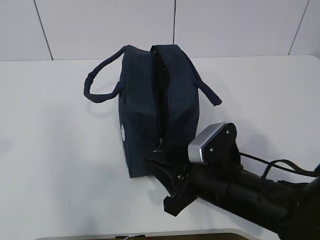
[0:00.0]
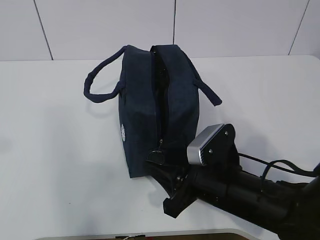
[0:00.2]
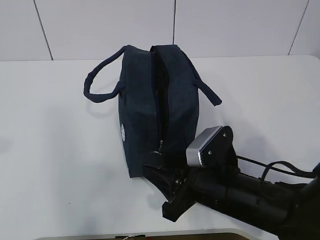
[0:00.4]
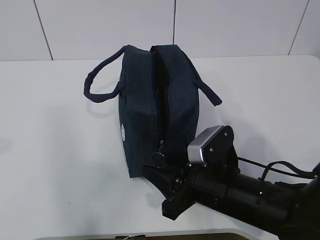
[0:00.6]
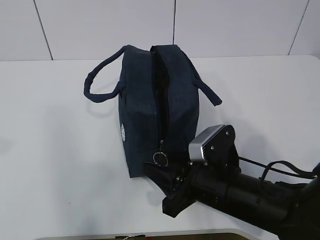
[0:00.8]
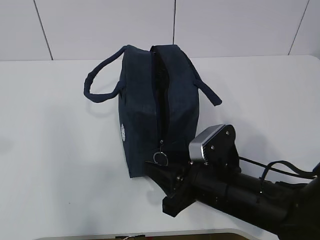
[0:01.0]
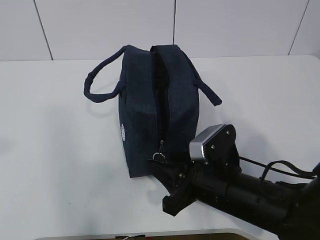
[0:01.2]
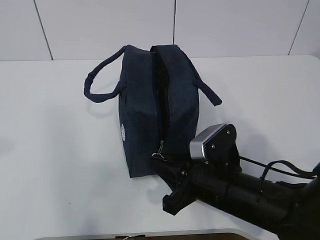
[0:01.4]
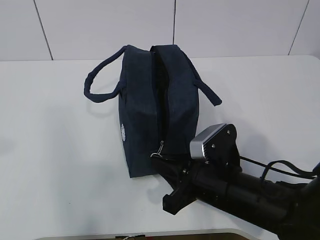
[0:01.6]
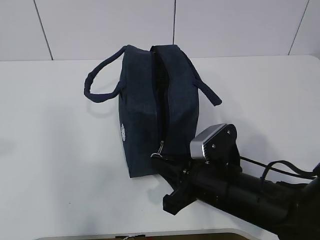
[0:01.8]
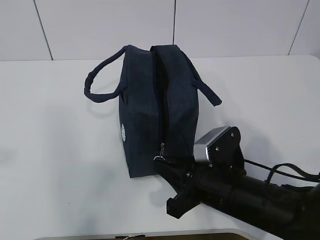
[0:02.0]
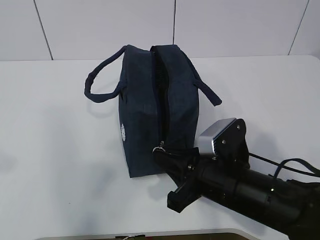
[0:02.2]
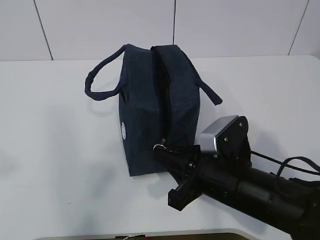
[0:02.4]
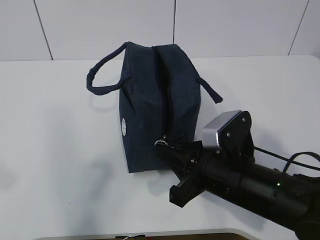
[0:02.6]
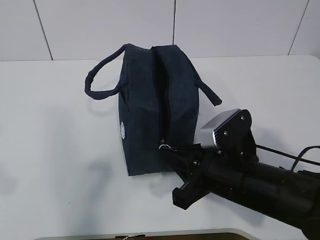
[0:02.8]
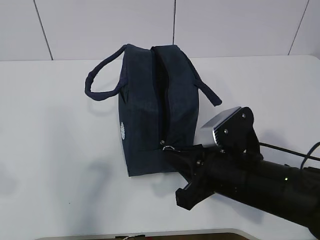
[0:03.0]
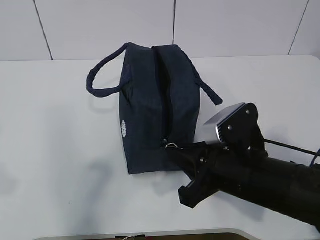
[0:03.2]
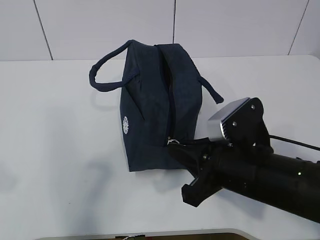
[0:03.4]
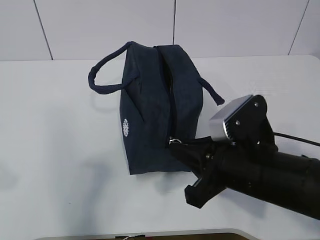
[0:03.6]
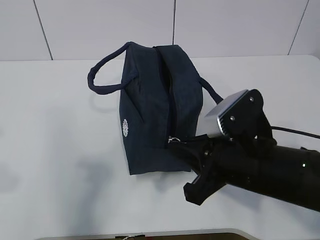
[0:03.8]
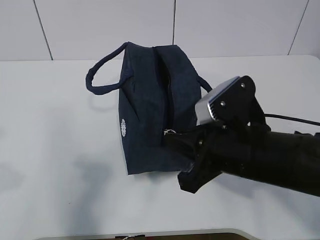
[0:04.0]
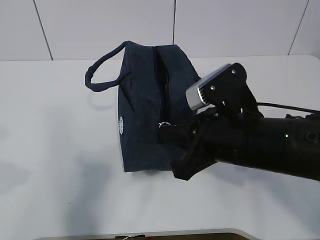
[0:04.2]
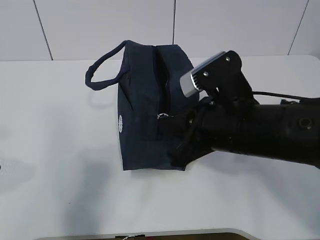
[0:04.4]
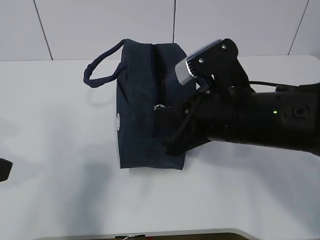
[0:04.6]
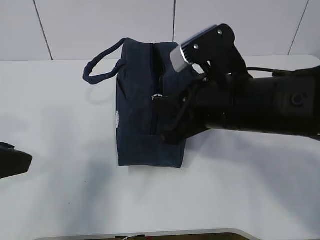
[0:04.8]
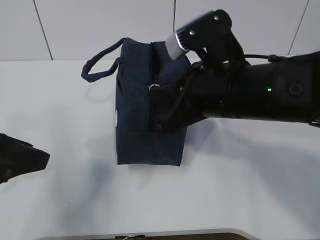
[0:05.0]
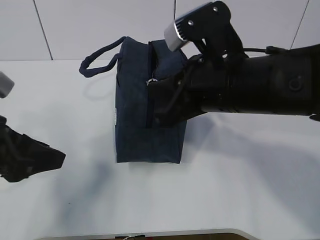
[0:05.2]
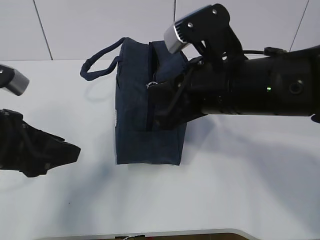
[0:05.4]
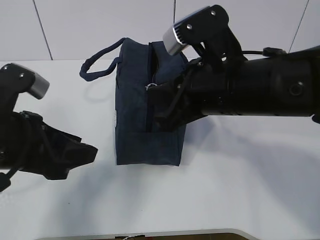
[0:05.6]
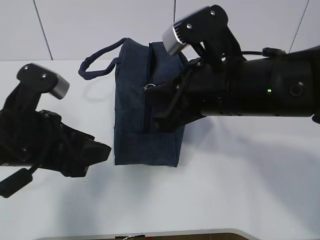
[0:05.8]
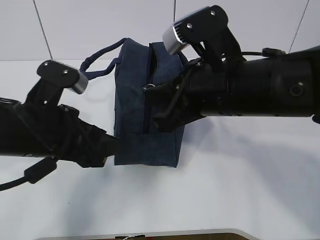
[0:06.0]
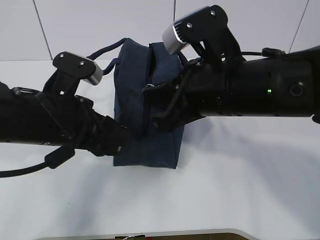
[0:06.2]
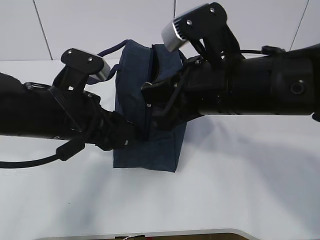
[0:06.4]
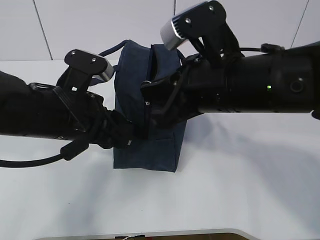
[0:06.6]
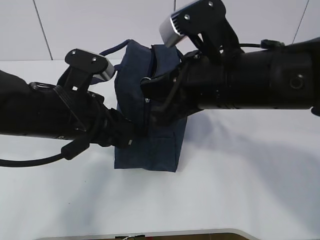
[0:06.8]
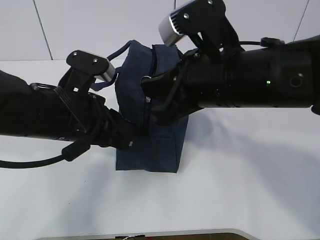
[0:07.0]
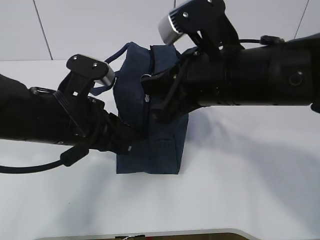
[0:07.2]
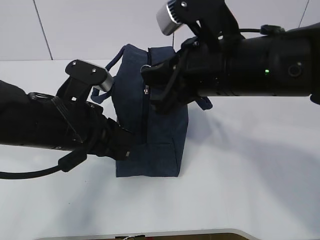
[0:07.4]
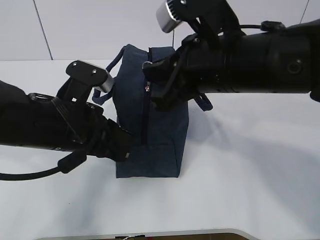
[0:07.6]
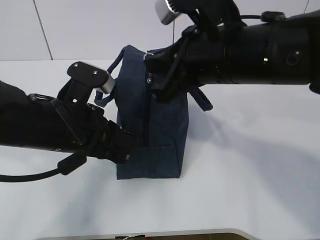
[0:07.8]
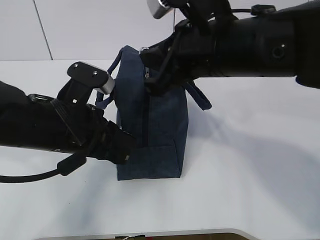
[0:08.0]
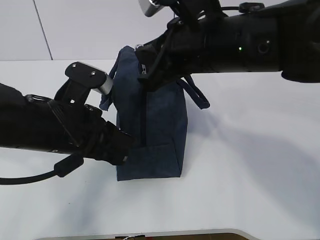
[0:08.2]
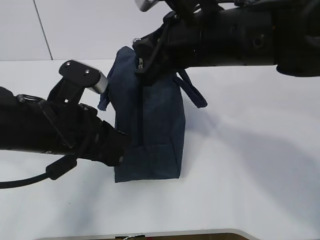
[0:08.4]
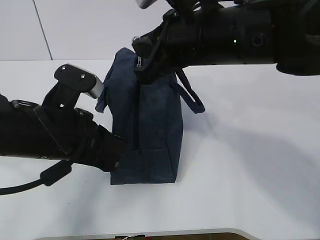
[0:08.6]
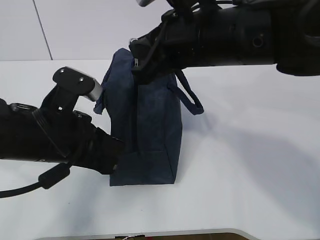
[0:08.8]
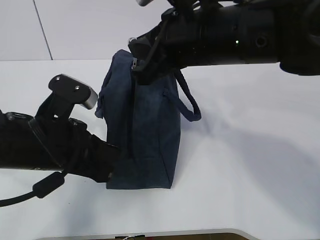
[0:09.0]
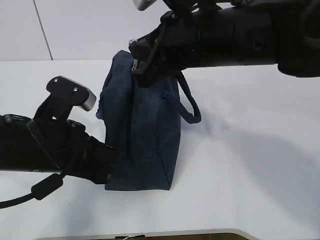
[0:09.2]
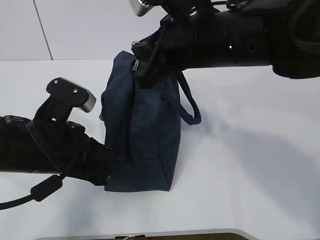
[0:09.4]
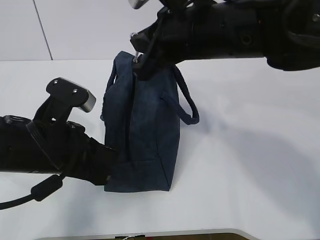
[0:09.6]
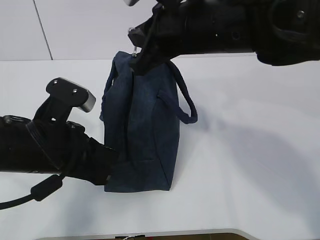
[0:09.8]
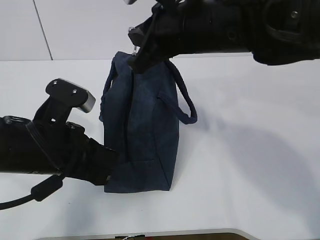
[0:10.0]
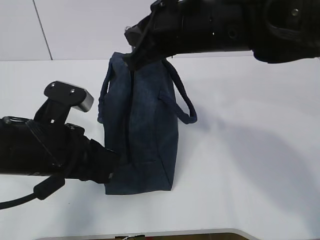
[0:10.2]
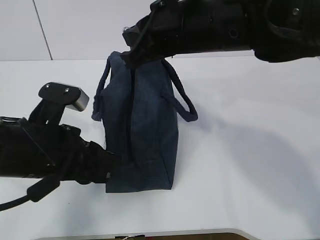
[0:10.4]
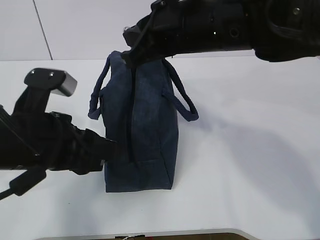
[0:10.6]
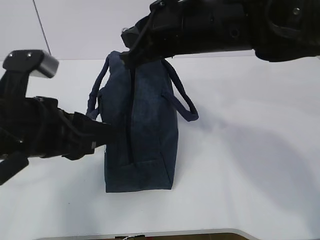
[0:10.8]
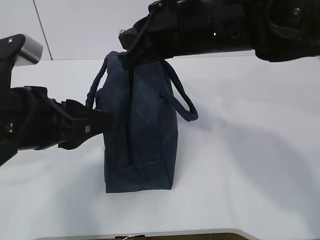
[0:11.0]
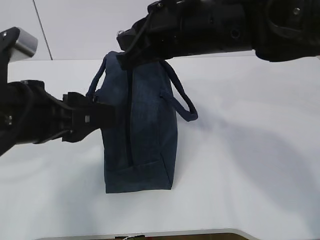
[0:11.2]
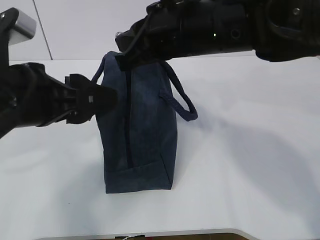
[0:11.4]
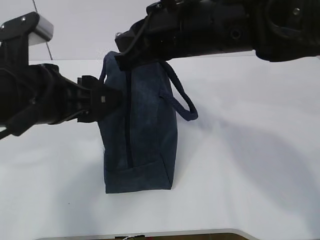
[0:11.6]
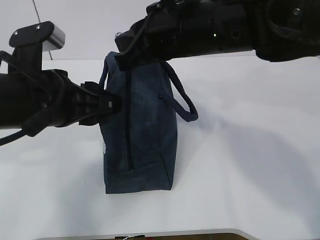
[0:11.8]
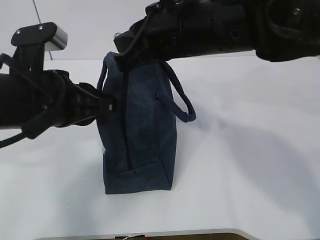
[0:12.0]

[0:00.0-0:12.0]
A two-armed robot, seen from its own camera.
Step, 0:00.0 to 0:07.2: Grab the lunch bag with your left hand.
Step, 0:07.4 to 0:10.0: Pull the zipper with your right hand.
0:00.0 to 0:01.6: The right gripper closes its fingers.
0:01.6 to 0:03.0: The left gripper heads downward, covering roughly 5 cm.
0:03.0 to 0:04.4: The right gripper heads upward, covering some 5 cm, while the left gripper goes roughly 5 cm downward.
0:04.4 to 0:06.0: The left gripper goes some 15 cm to the right, forward and downward, while the right gripper changes place by approximately 5 cm.
0:06.0 to 0:07.6: The left gripper closes its fingers.
0:09.0 to 0:10.4: The left gripper opens its fingers.
0:10.4 to 0:12.0: The left gripper goes some 5 cm upward, and opens, then closes once more.

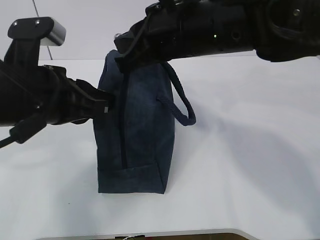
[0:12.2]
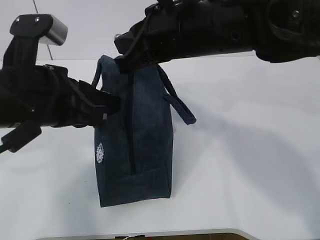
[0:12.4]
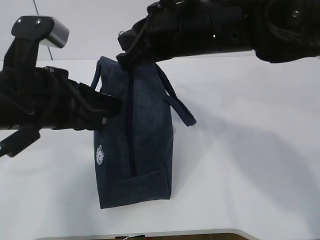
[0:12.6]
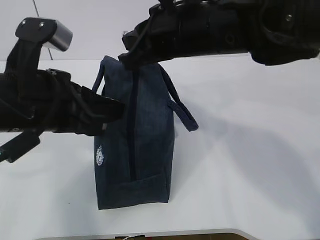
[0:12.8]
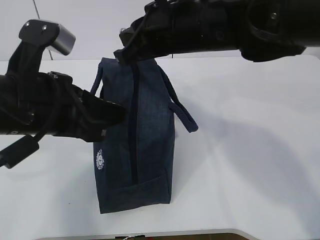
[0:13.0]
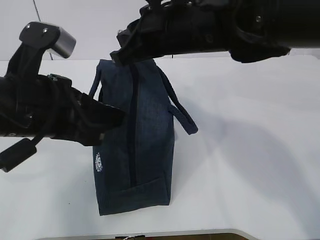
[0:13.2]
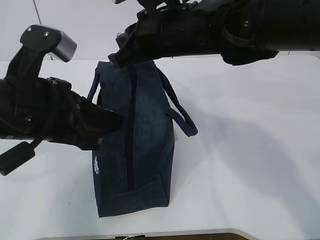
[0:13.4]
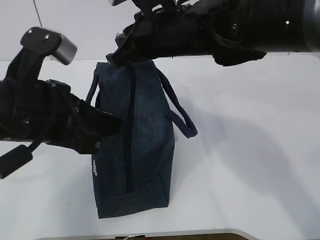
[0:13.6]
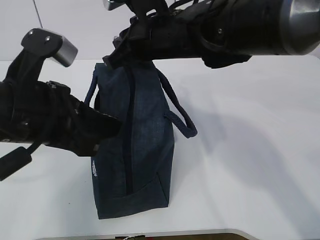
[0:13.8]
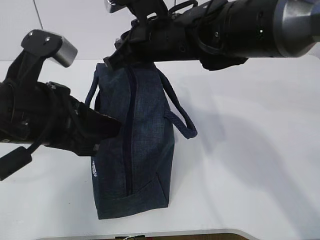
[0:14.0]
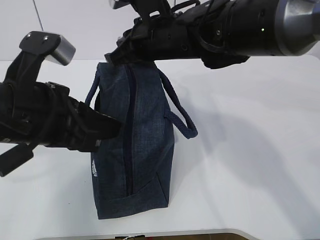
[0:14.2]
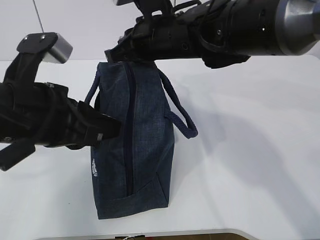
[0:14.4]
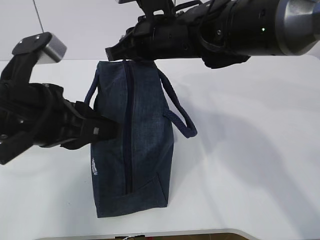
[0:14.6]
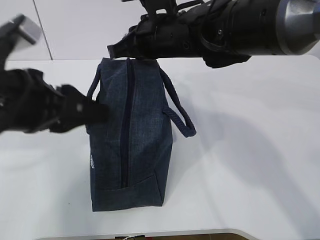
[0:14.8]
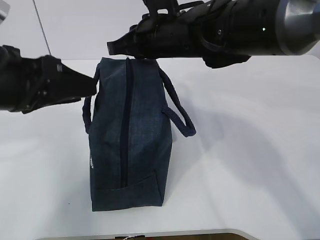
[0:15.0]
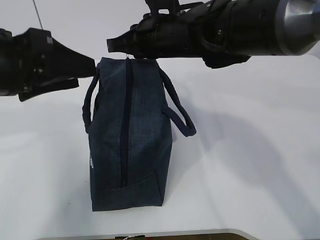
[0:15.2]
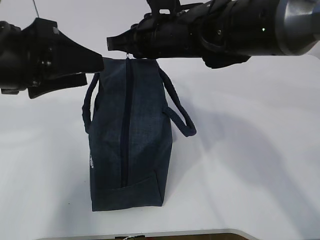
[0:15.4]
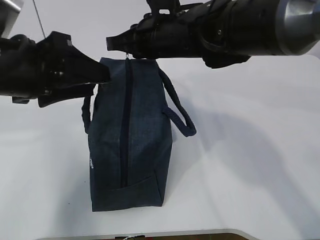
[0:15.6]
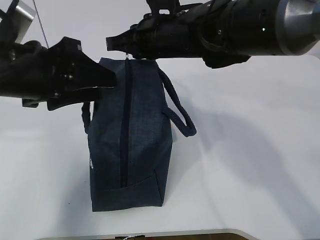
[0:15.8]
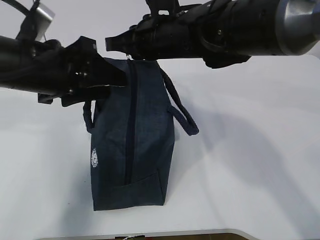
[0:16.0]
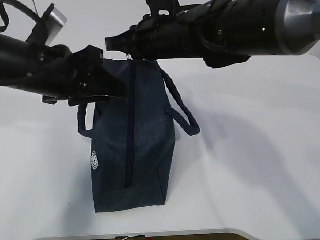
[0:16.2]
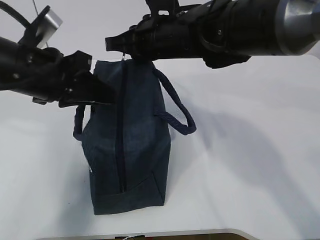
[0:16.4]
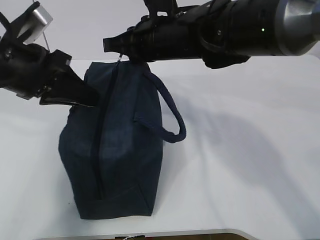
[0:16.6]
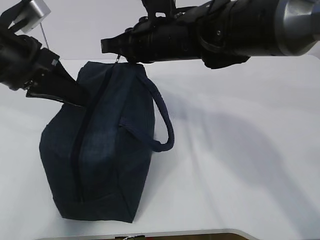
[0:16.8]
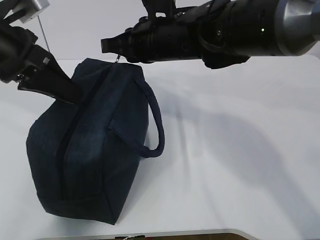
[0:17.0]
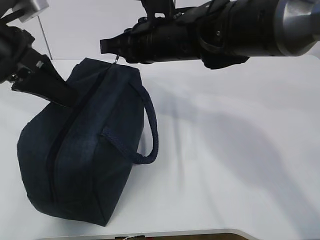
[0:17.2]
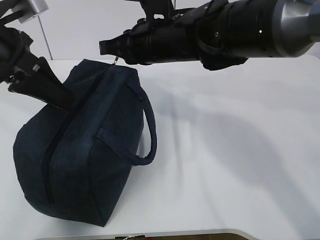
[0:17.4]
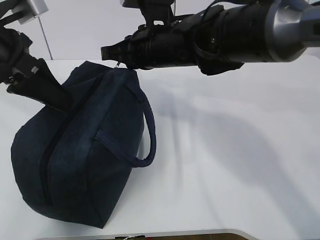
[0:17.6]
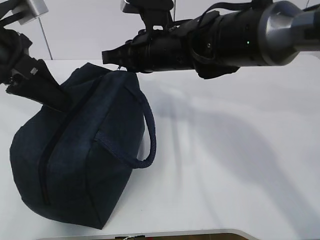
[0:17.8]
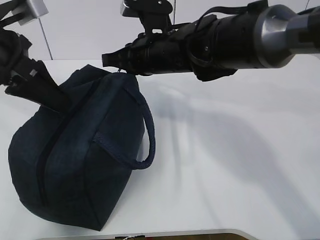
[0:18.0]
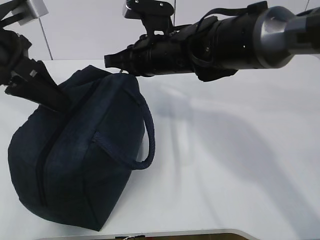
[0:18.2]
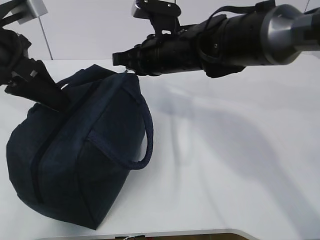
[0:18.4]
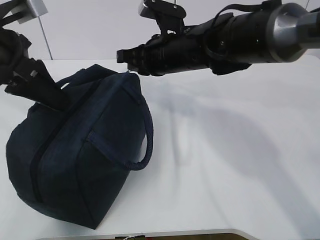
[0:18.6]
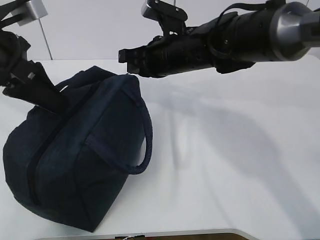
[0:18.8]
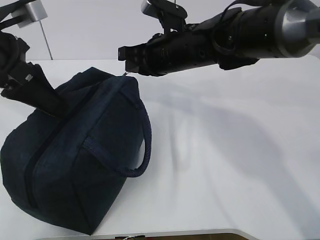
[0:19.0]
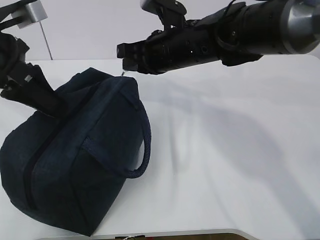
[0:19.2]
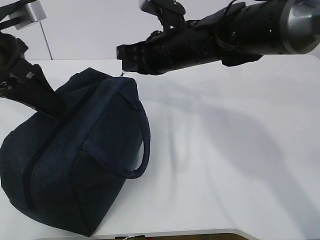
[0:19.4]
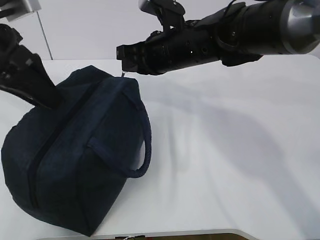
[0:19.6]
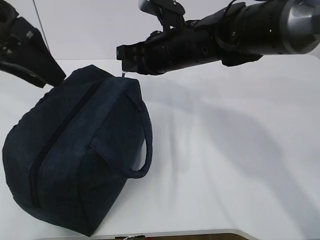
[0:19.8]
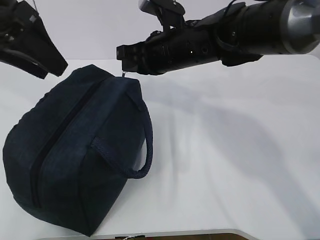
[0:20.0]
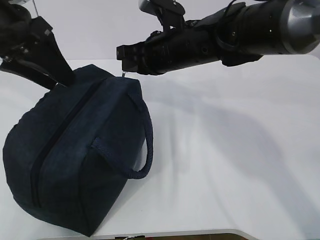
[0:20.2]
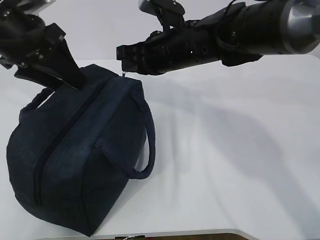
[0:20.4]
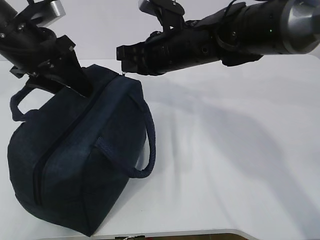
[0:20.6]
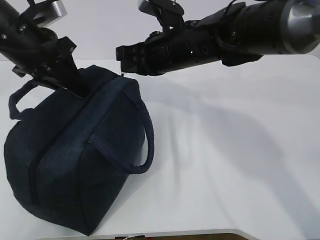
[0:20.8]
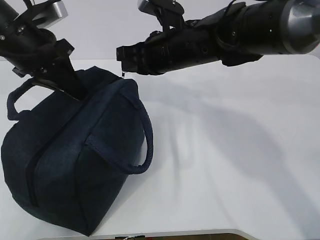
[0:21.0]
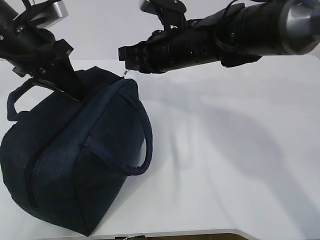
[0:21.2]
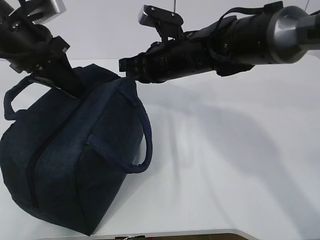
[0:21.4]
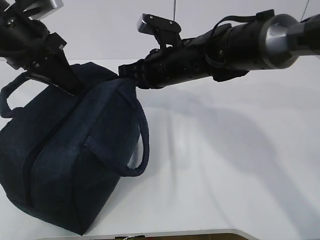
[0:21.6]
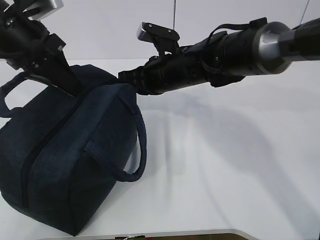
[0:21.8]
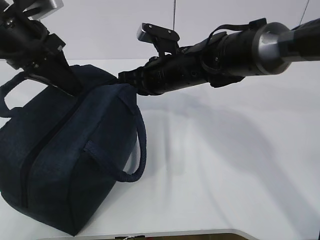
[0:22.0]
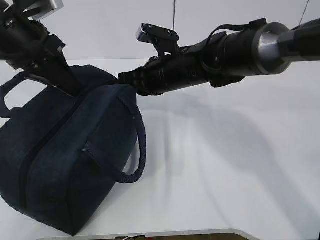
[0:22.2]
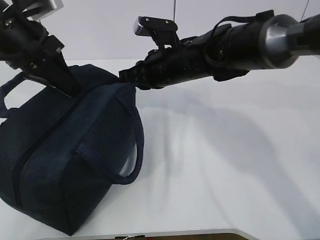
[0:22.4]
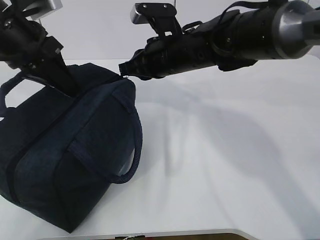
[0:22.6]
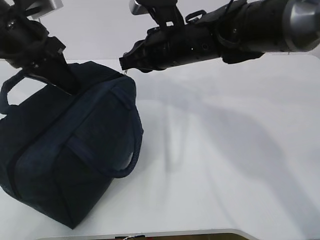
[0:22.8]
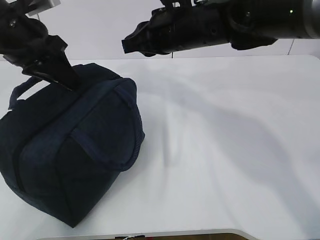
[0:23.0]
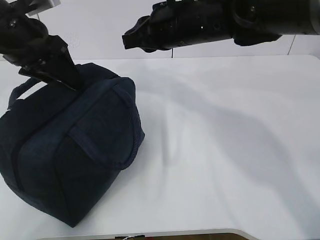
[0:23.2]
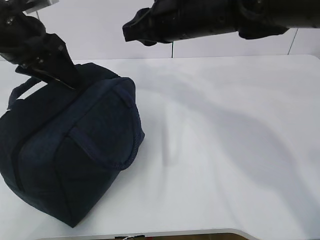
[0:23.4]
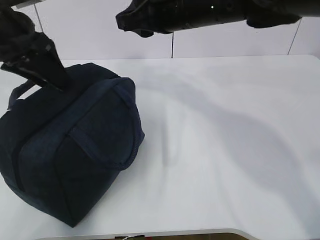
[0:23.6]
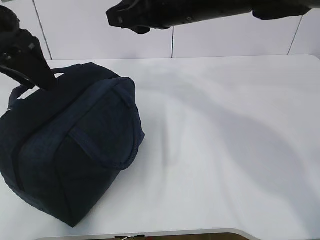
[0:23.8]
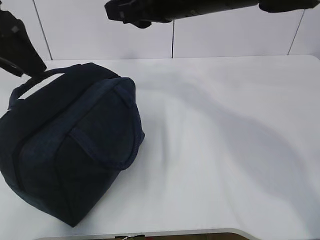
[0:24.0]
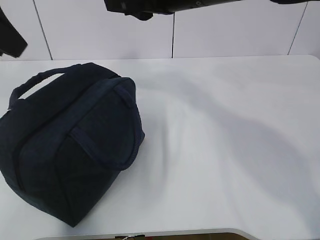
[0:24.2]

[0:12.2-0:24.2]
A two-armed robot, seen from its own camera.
0:12.2 to 0:13.8: The right gripper goes some 5 cm forward.
0:13.8 to 0:15.2: The left gripper ends up approximately 5 cm from where it was, and opens up.
0:15.2 to 0:16.6: The left gripper travels forward by approximately 5 cm, and closes.
0:18.2 to 0:19.8: The left gripper opens.
0:19.8 to 0:21.2: The left gripper heads downward, covering about 5 cm, and closes up.
0:21.2 to 0:22.6: The grippers make only small movements.
0:22.6 to 0:24.2: Both grippers move upward and backward, about 10 cm. The right gripper opens its fingers, while the left gripper opens.
